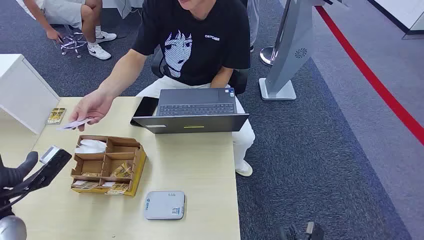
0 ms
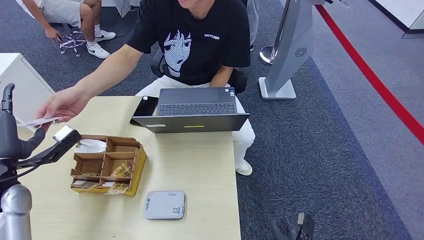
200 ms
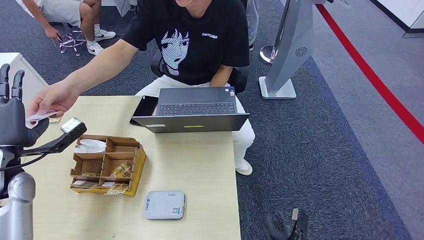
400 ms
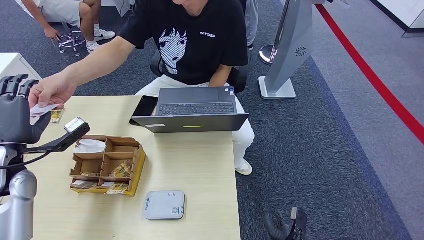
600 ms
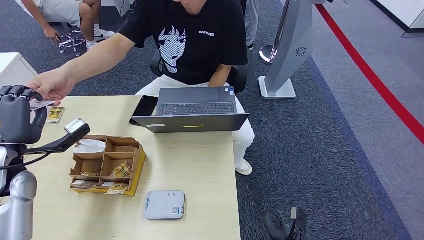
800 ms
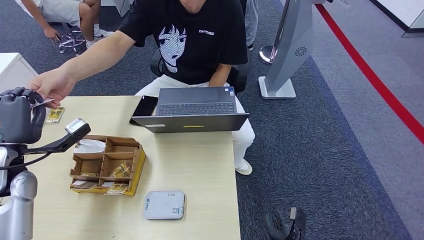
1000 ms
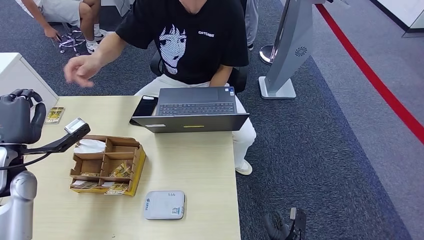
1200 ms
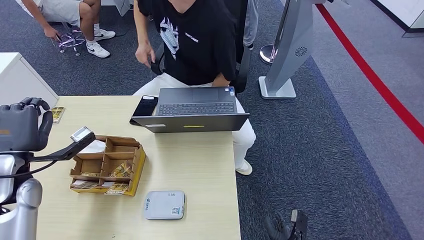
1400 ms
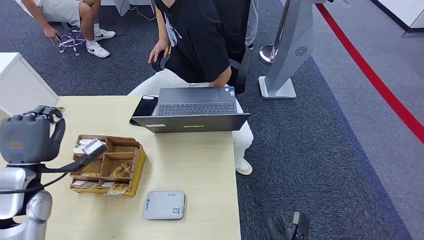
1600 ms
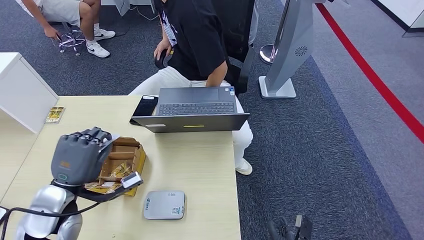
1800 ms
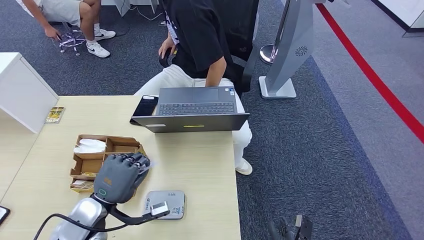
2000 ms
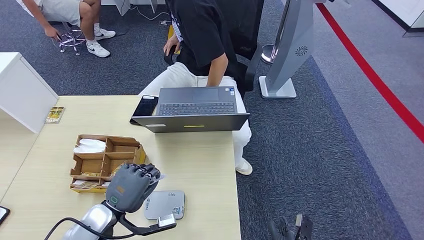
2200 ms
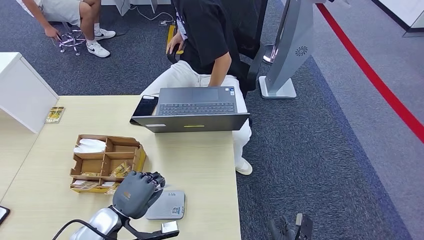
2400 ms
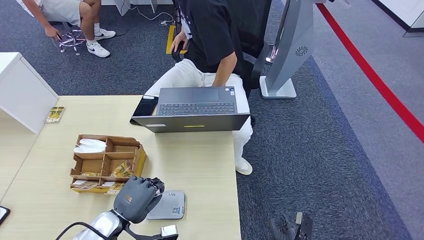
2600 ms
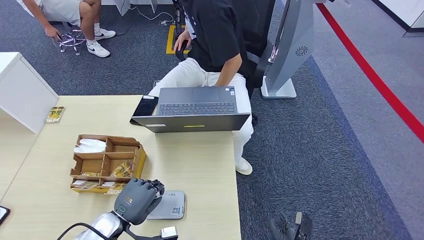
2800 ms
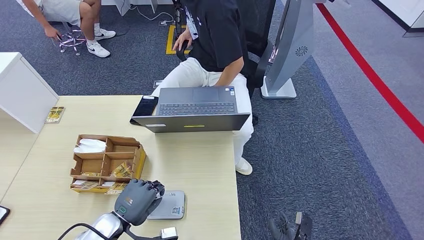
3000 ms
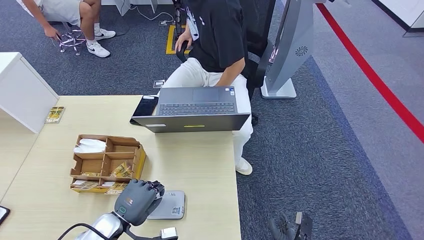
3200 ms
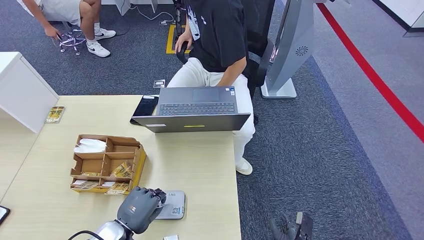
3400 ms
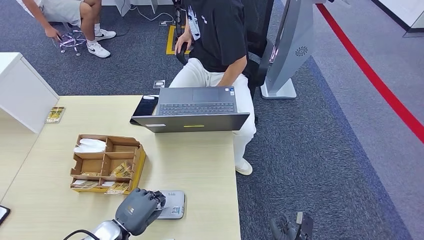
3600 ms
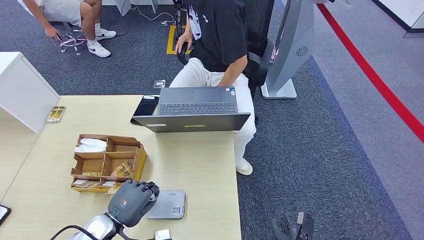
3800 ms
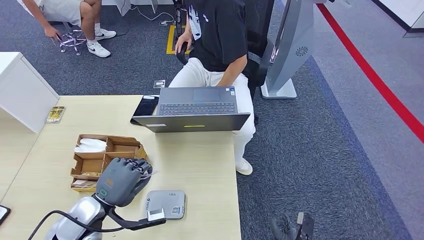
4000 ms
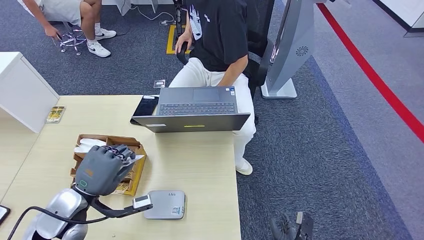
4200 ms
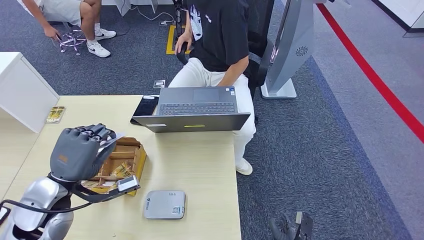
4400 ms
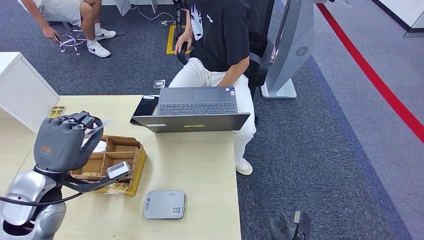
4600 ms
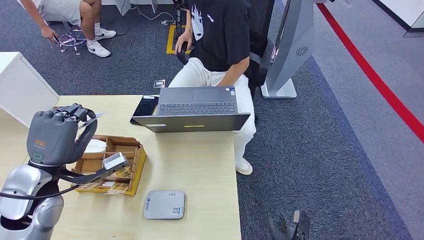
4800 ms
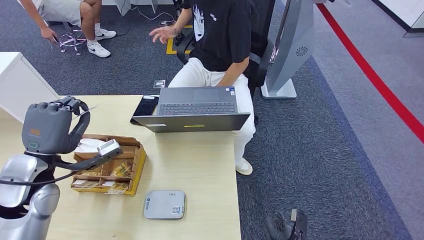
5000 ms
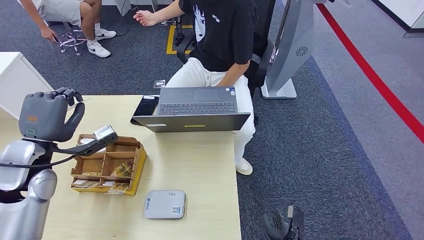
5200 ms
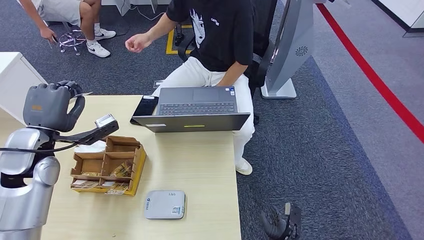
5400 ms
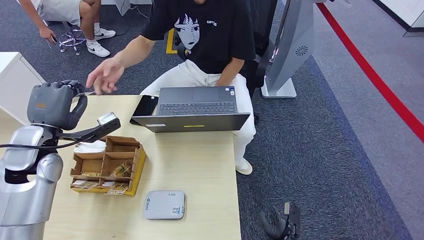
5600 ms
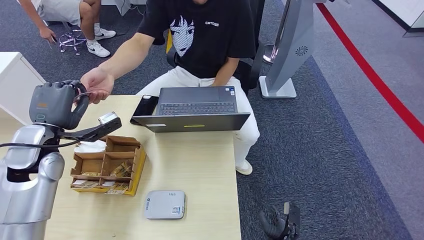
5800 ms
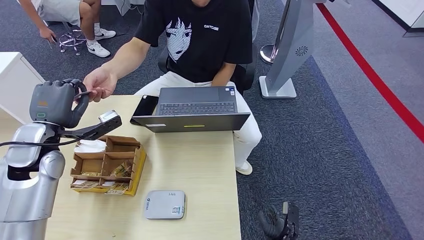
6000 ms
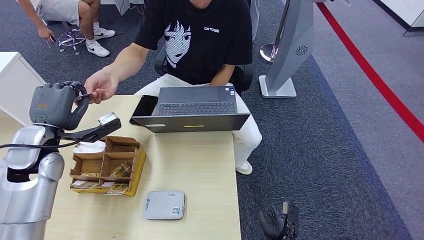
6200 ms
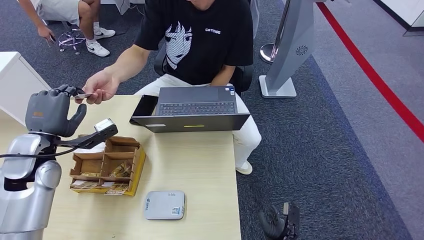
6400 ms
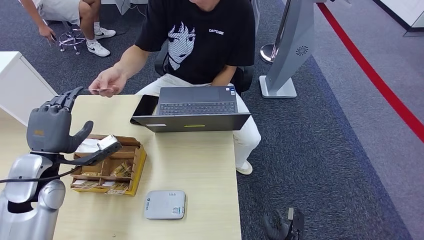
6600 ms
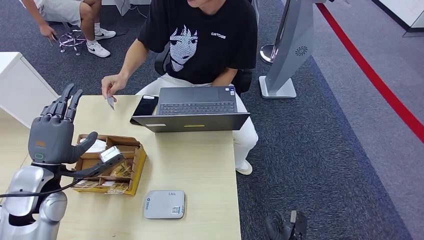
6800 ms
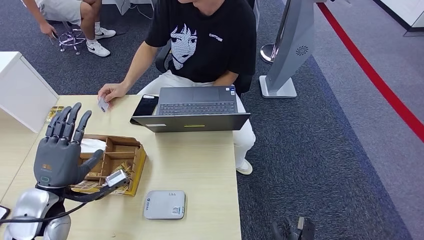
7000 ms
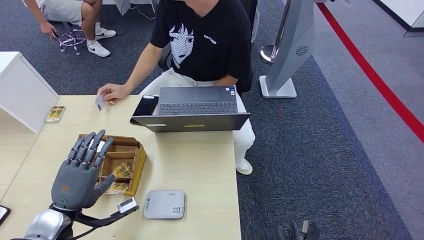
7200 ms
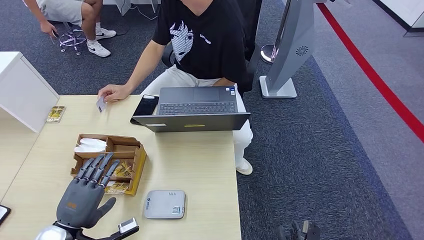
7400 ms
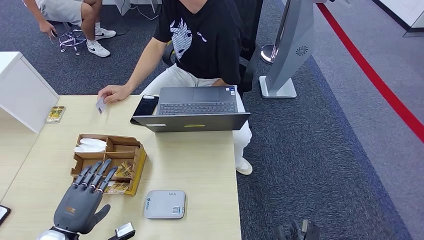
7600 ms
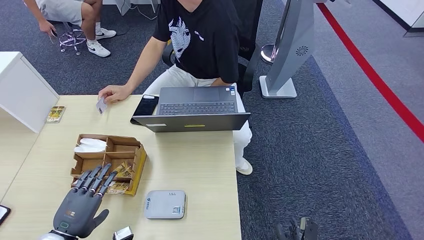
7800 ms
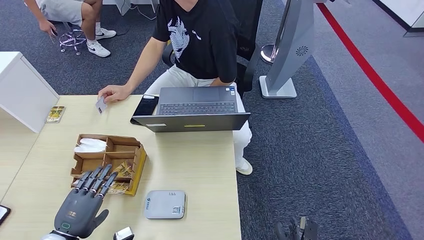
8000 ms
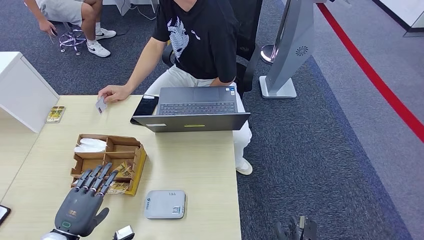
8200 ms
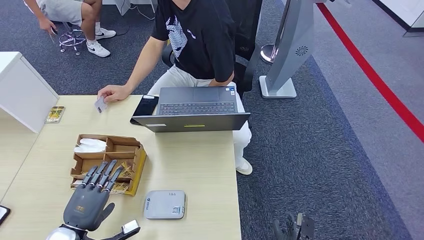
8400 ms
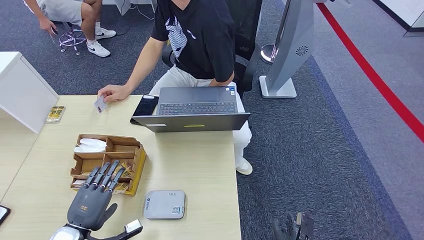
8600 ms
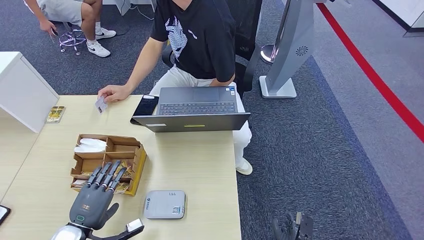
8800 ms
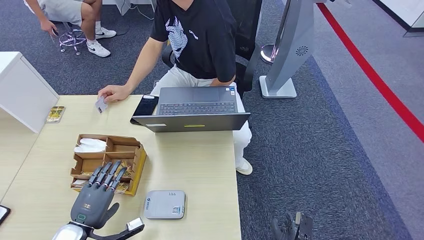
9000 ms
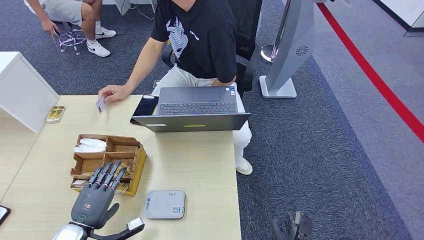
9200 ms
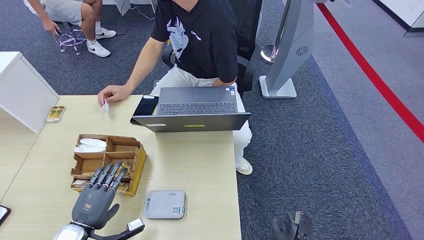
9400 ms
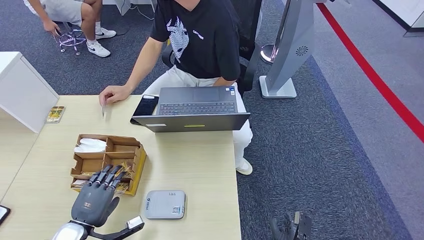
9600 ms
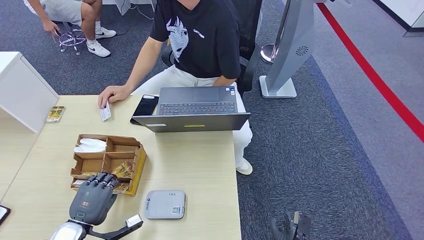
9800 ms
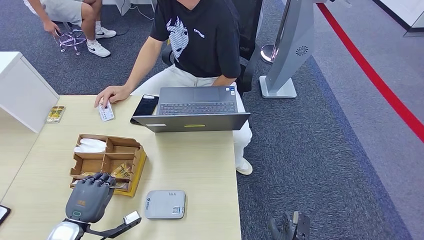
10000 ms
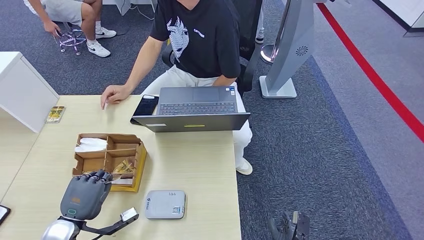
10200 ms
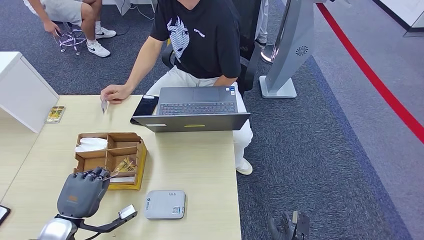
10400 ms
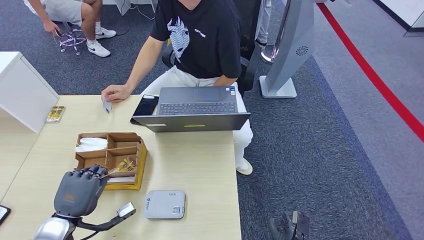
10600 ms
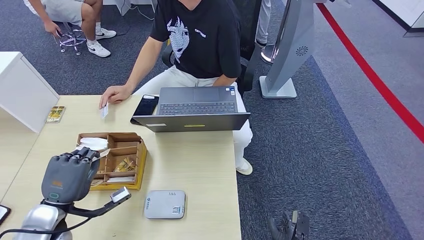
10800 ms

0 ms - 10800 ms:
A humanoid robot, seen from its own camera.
Step, 0 ms - 1800 ms: Take the ID card from the person's hand.
Step, 2000 ms - 4000 ms: Place the ID card on the card reader.
Step, 4200 ms - 7200 ms: Hand the ID card to the person.
3000 ms - 4600 ms: The left hand heads upward, forward and to the left, covering approximately 20 cm.
7800 ms - 9200 ms: The hands stay close to where they were, moving slightly.
9200 ms - 10800 ms: The left hand moves upward, roughly 10 cm.

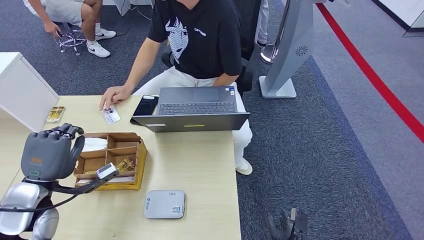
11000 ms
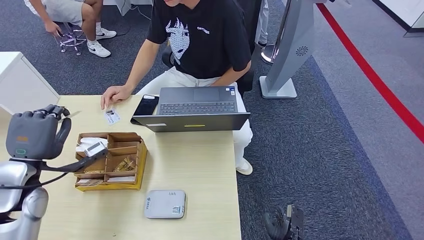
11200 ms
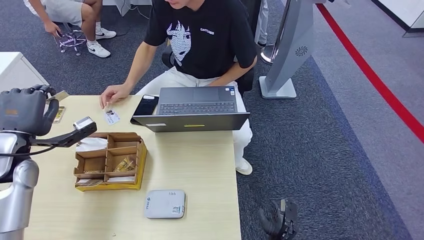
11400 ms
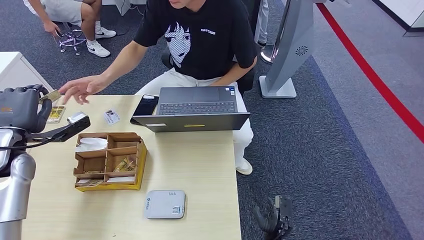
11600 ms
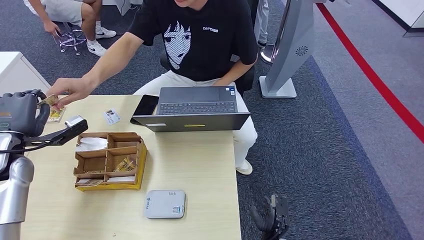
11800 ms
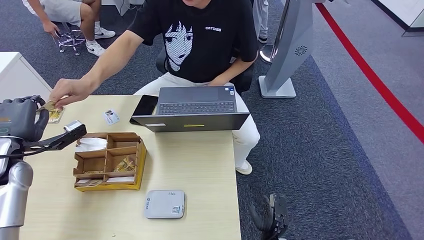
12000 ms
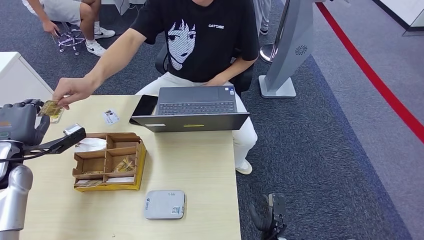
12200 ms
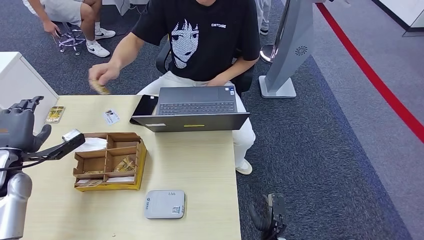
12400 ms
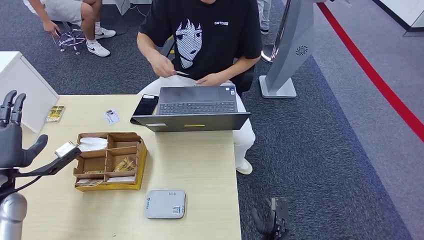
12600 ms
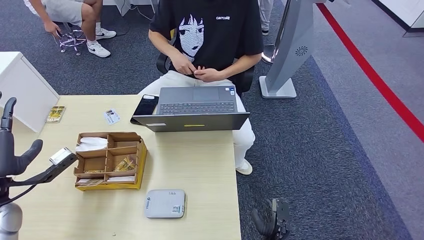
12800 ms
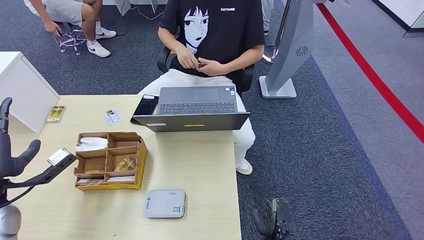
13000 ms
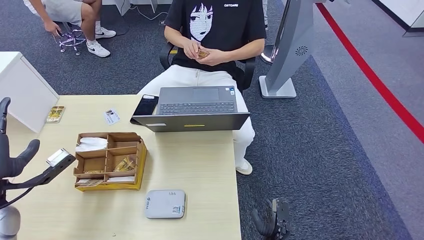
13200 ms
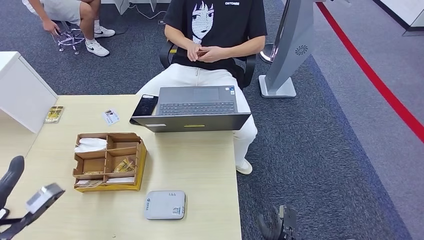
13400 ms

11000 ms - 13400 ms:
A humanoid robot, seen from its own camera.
Step, 11400 ms - 13400 ms: Hand the room key to the person.

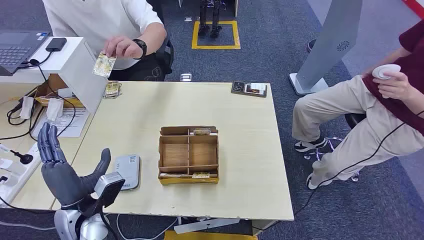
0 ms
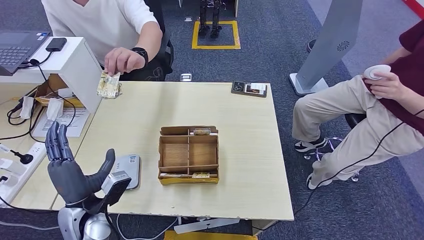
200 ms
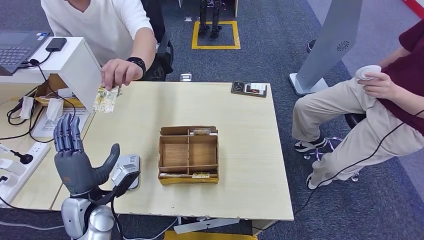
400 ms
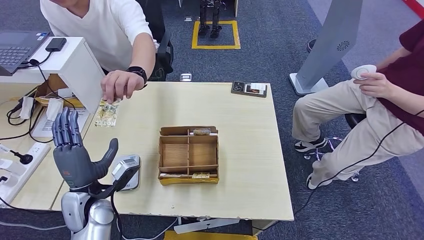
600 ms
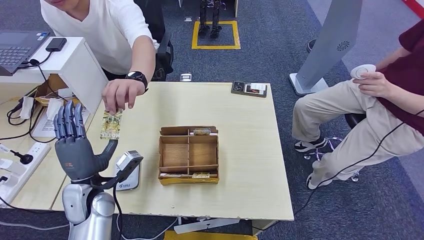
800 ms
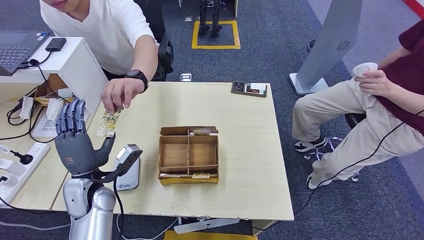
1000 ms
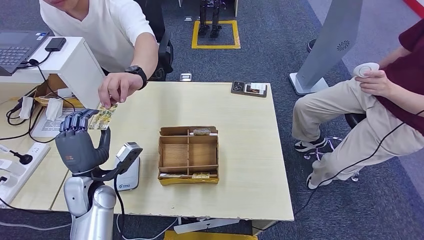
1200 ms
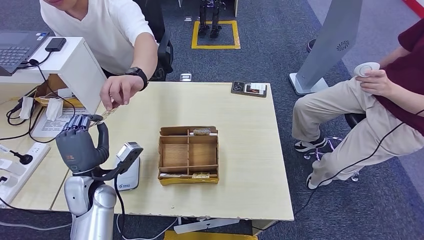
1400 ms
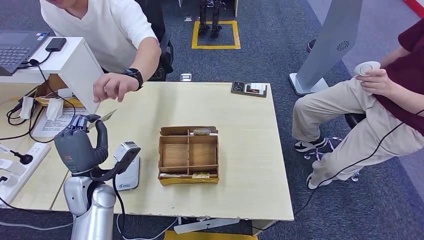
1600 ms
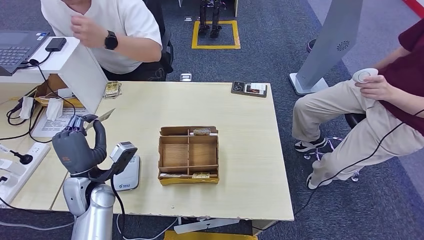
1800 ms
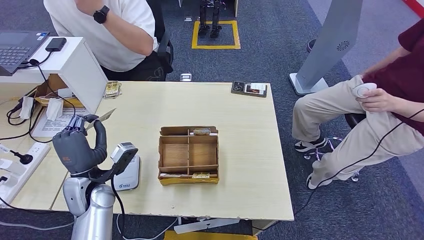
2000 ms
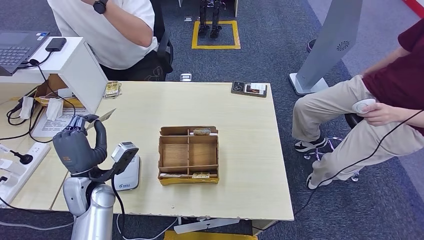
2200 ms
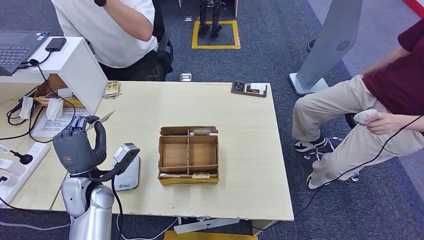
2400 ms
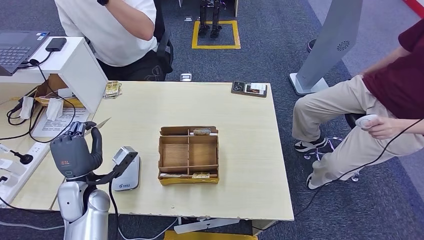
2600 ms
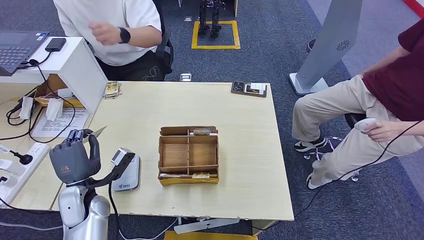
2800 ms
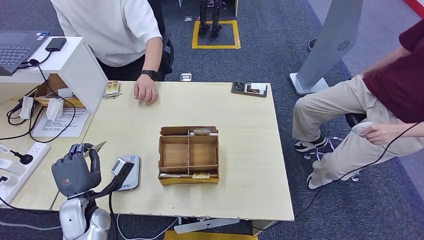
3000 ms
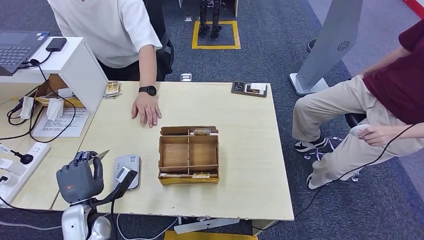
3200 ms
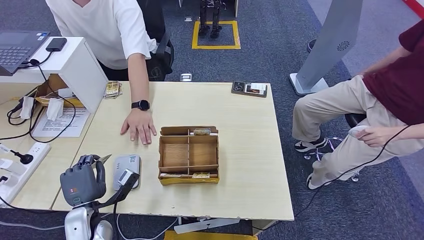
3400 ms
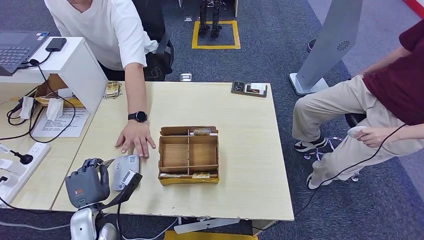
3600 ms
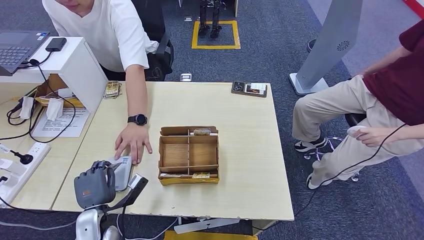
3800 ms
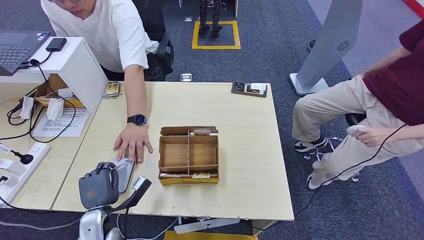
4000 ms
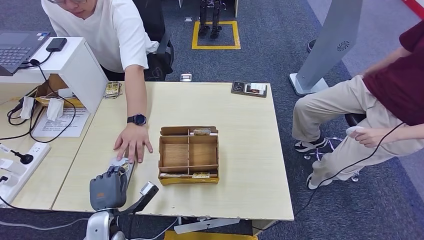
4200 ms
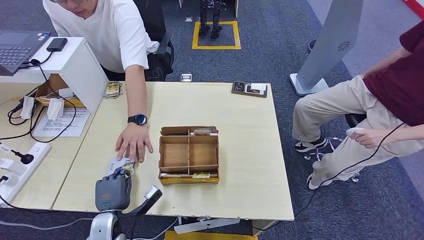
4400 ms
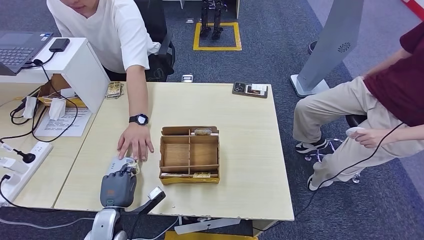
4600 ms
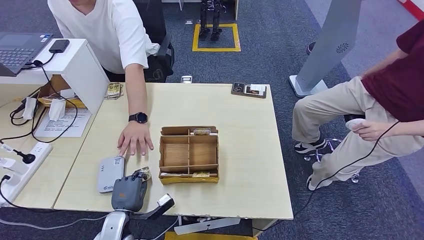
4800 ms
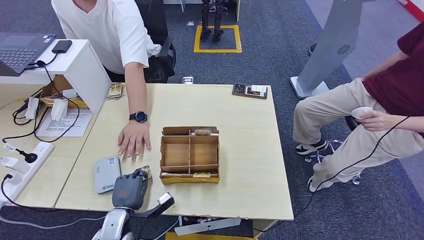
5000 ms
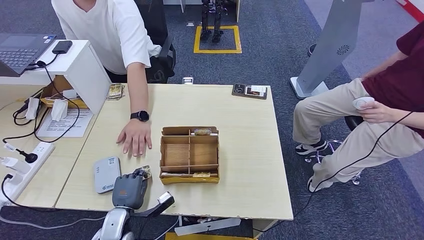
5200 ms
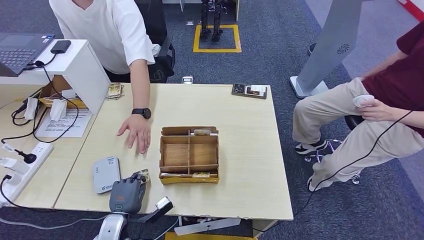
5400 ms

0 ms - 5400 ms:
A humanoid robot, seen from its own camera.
Step, 0 ms - 2200 ms: Take the ID card from the person's hand.
Step, 2400 ms - 4600 ms: Place the ID card on the card reader.
1400 ms - 2800 ms: The hands move only a little.
2800 ms - 4000 ms: The left hand goes some 10 cm downward.
